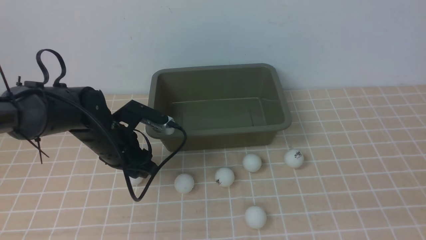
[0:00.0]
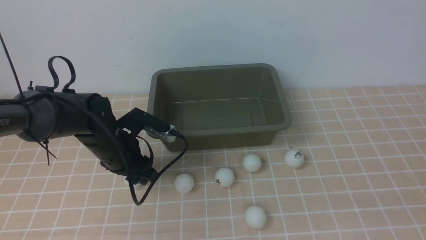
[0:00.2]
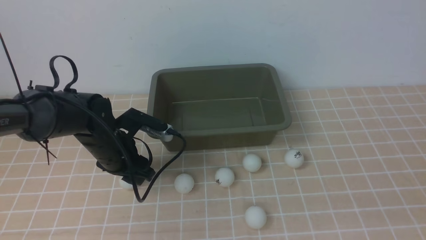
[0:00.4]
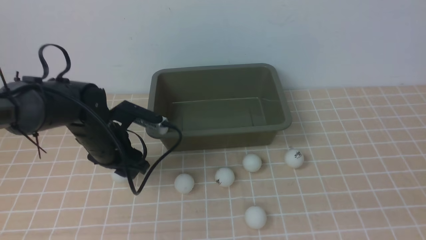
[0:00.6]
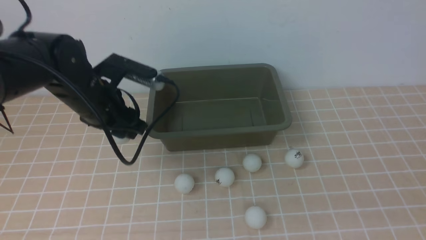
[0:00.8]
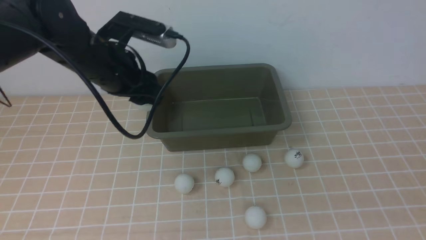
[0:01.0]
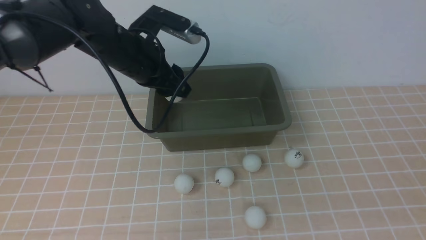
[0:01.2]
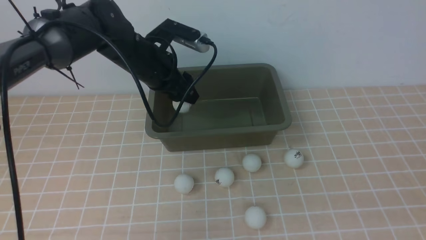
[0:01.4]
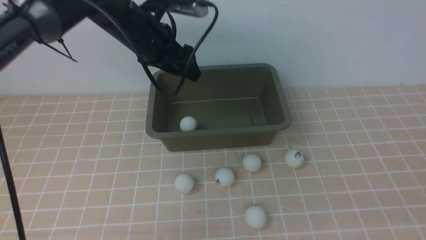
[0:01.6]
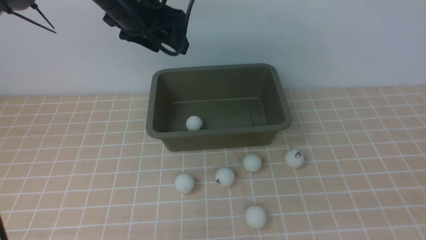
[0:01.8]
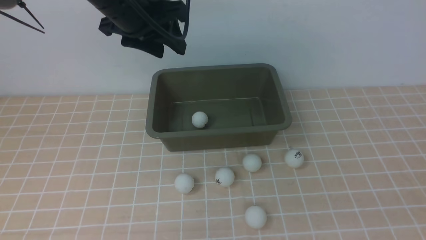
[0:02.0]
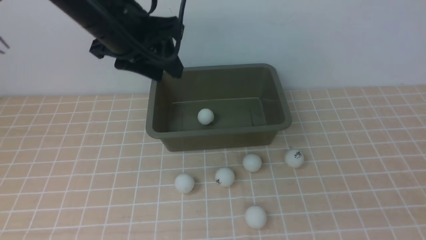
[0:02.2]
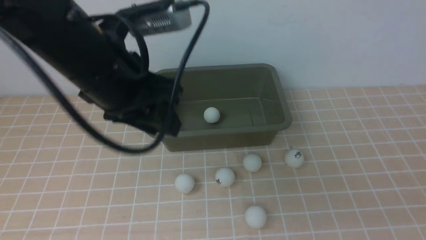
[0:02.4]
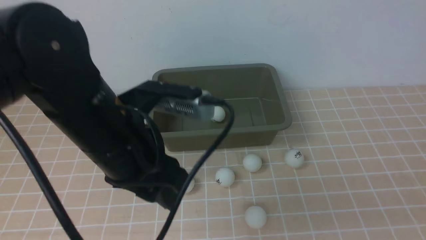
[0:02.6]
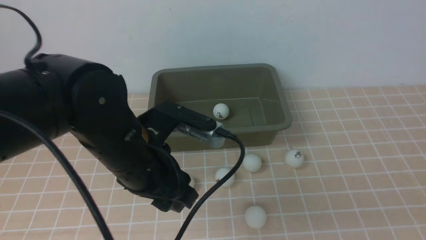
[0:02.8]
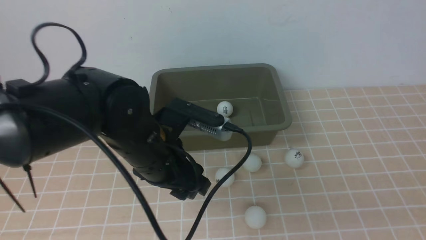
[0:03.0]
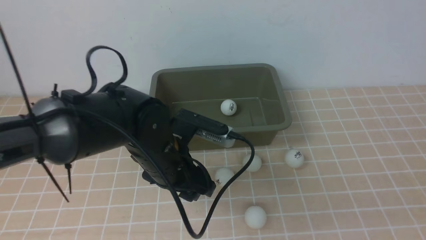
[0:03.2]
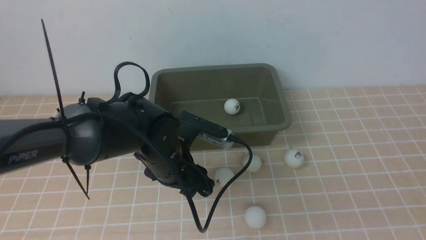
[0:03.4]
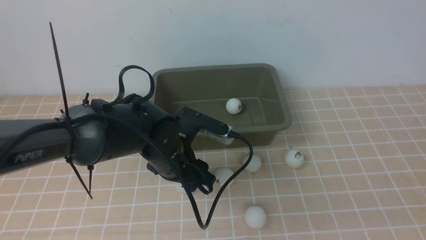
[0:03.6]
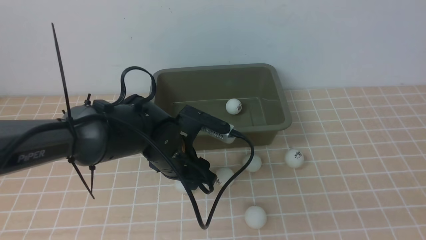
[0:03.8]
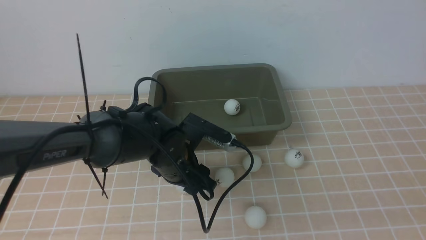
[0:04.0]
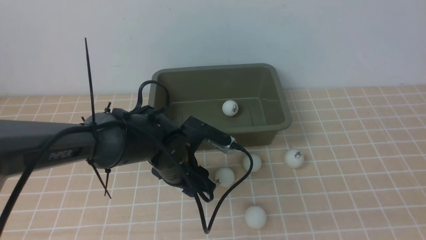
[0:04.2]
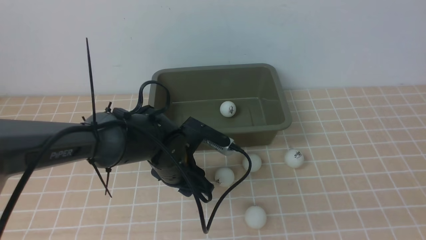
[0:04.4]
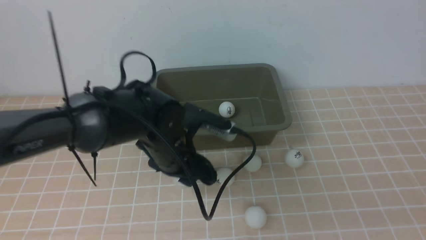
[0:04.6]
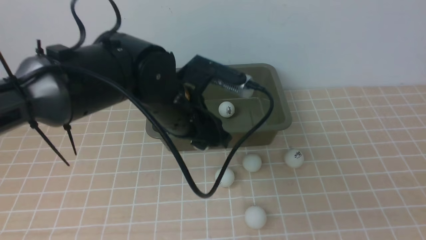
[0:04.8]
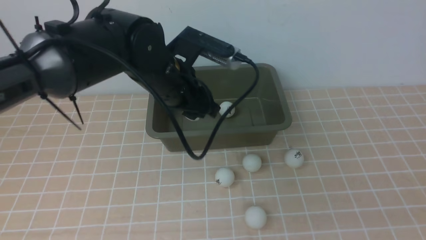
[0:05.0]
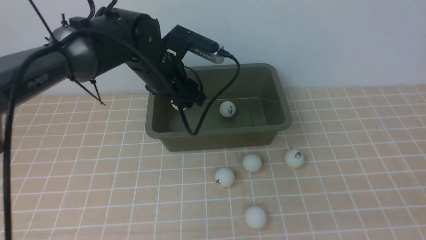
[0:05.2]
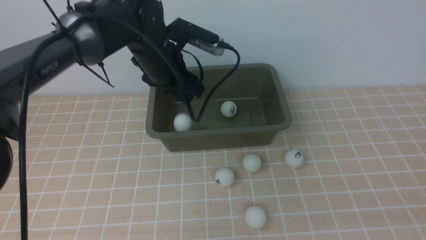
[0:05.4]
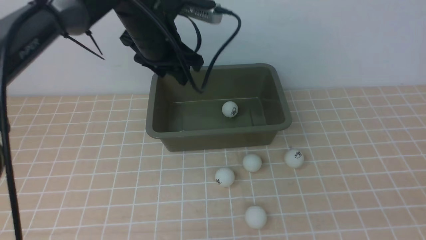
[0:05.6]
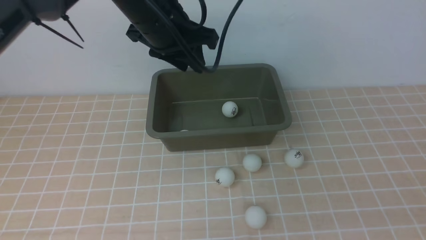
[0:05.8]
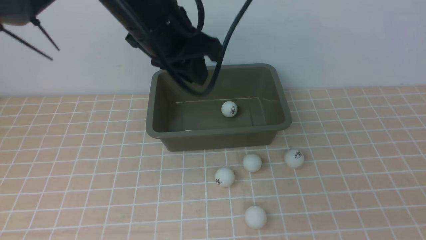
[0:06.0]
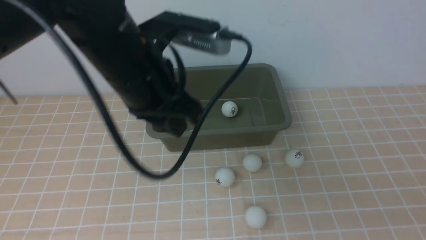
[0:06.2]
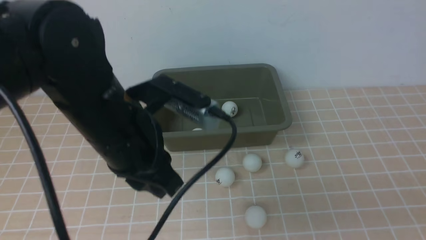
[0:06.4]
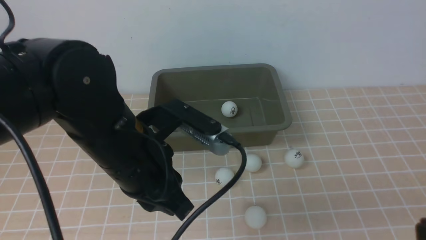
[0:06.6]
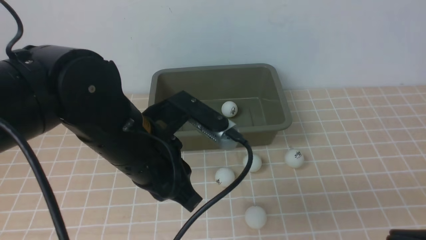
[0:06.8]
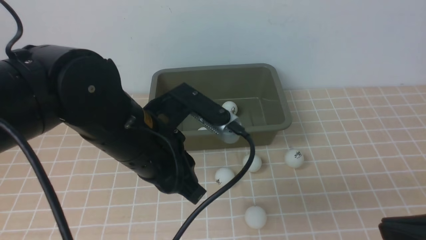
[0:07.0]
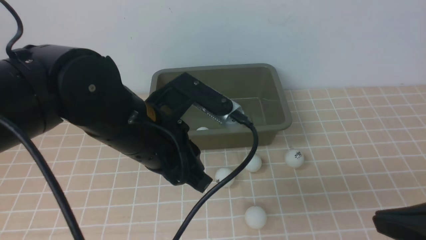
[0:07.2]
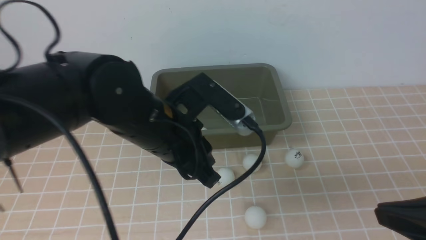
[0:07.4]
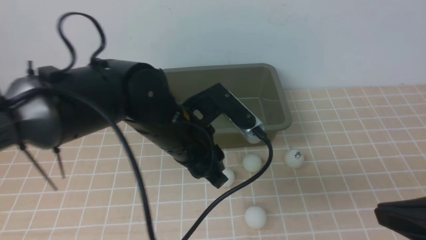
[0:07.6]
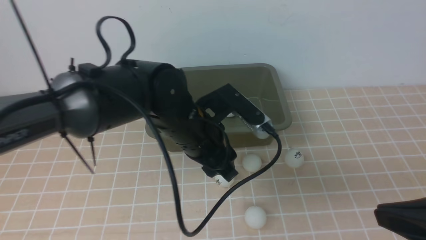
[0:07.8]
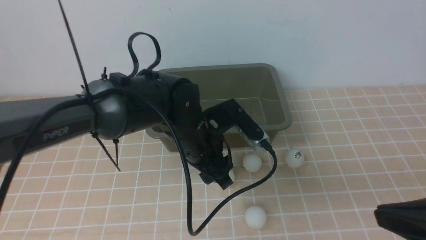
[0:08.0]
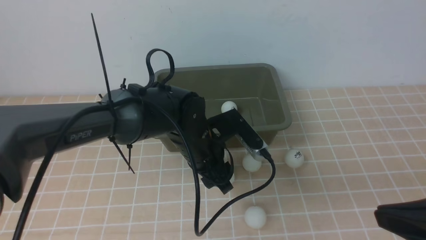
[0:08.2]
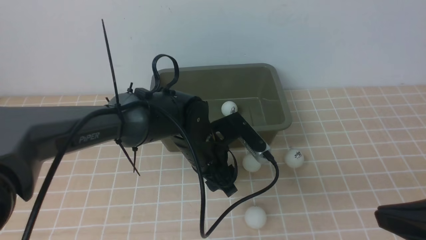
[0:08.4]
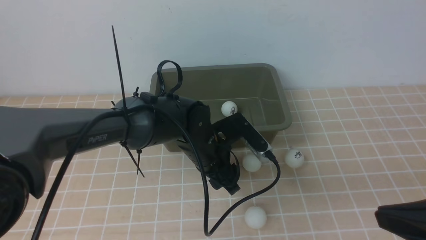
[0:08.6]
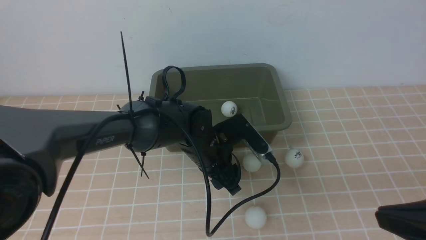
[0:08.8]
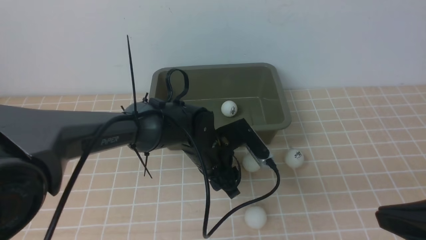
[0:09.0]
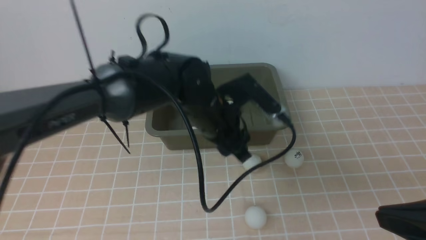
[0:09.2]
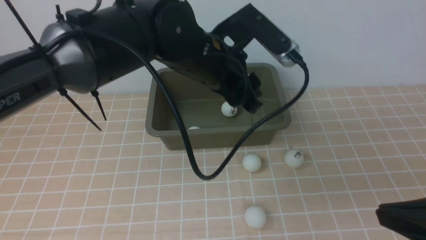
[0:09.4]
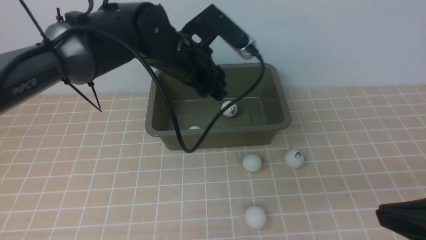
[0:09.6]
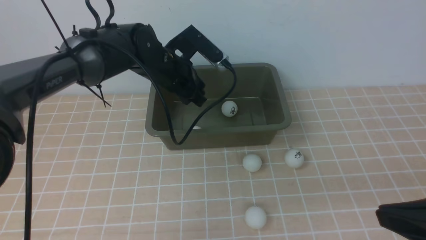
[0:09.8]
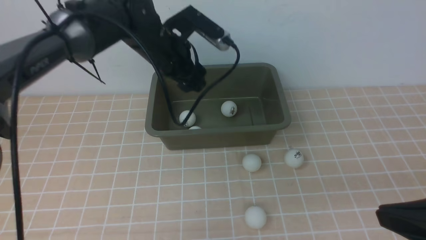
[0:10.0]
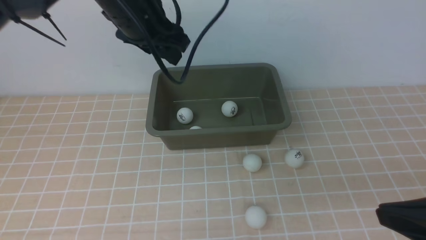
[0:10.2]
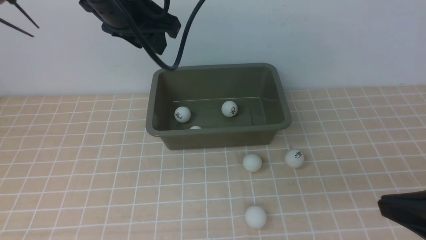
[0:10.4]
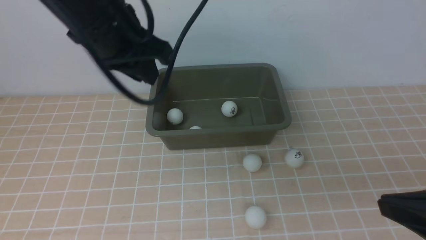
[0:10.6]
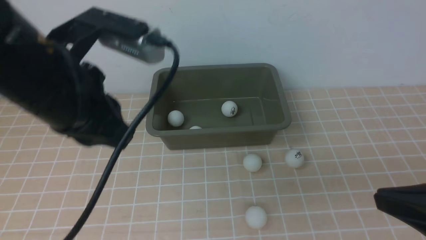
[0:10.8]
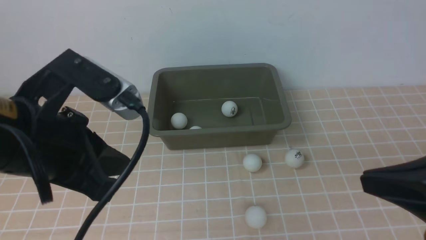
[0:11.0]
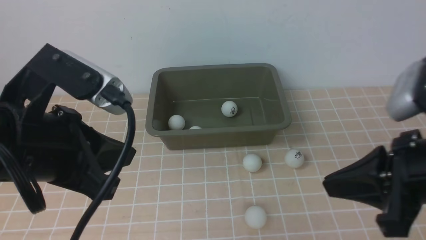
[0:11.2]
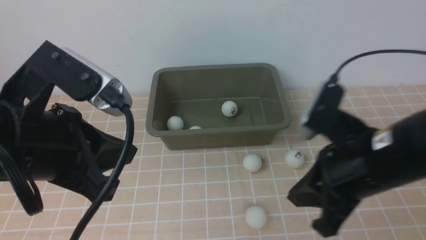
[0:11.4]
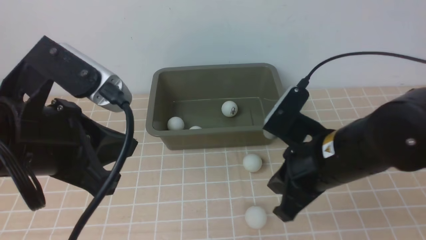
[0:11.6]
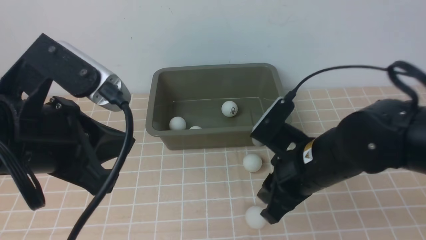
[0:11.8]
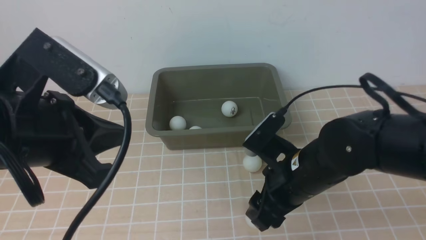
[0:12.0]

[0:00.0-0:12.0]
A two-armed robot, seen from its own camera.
Step, 0:01.0 to 0:02.0: use the left arm to put the table tennis ball into the box.
Step, 0:02.2 to 0:05.0: use the left arm to clamp the table tennis ball closest to it.
Step, 0:05.2 to 0:06.0: use the left arm to put the table tennis ball into the box.
Step, 0:06.2 to 0:09.0: use the left arm to clamp the table tennis ball closest to it.
Step, 0:09.2 to 0:10.6: use the left arm to put the table tennis ball into the box.
0:00.0 to 0:01.6: The left gripper travels upward and forward by some 20 cm.
0:01.6 to 0:03.0: The left gripper shifts some 20 cm backward and downward.
0:03.0 to 0:04.4: The left gripper heads downward, covering approximately 5 cm.
0:04.4 to 0:06.0: The left gripper heads upward, covering approximately 20 cm, and closes its fingers.
0:06.0 to 0:07.6: The left gripper travels downward by about 10 cm, while the right gripper moves forward, roughly 5 cm.
0:07.6 to 0:09.0: The left gripper goes roughly 10 cm downward and forward.
0:09.0 to 0:10.4: The left gripper heads upward and to the left, covering some 25 cm.
0:10.4 to 0:12.0: The left gripper is displaced backward by about 20 cm, and closes. Meanwhile the right gripper goes about 20 cm to the left, forward and downward, and opens up.

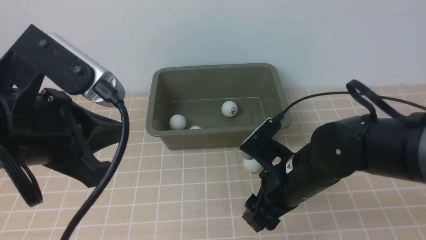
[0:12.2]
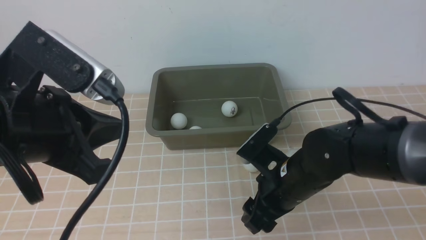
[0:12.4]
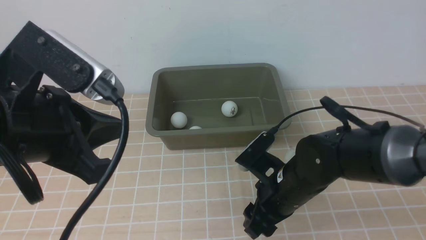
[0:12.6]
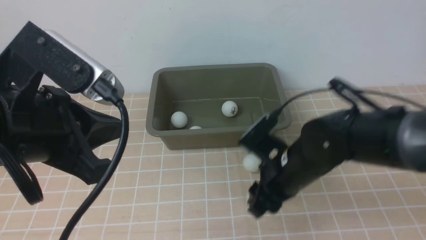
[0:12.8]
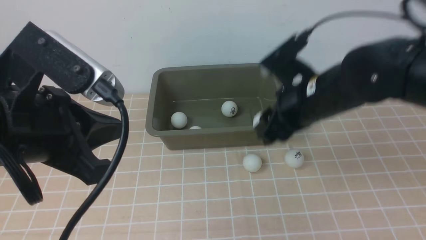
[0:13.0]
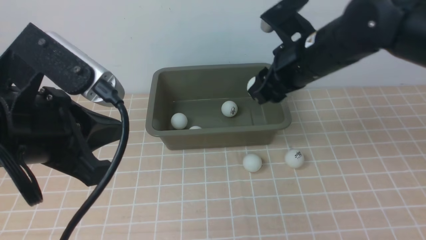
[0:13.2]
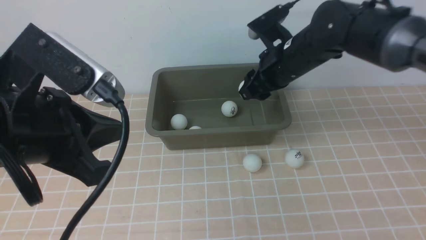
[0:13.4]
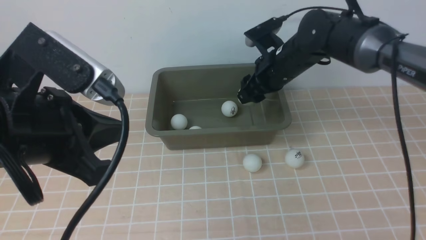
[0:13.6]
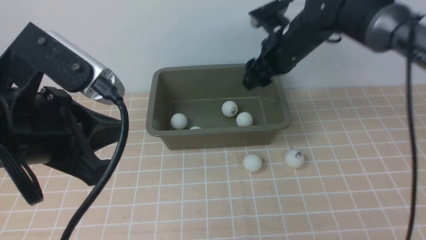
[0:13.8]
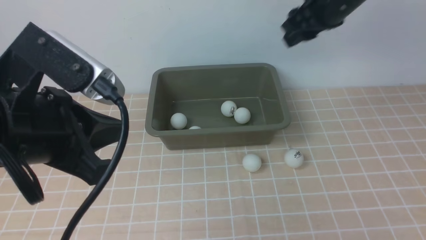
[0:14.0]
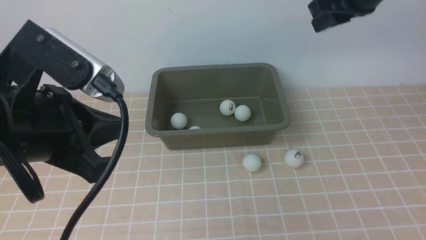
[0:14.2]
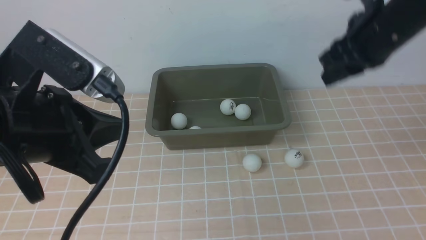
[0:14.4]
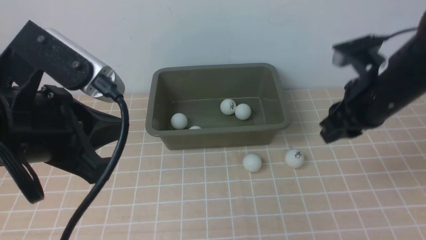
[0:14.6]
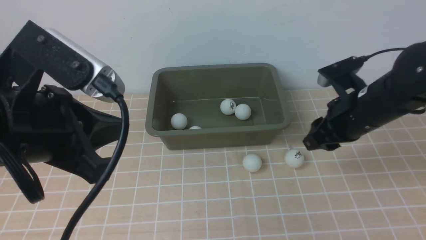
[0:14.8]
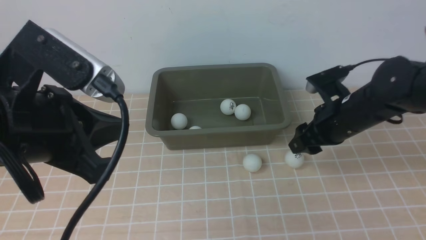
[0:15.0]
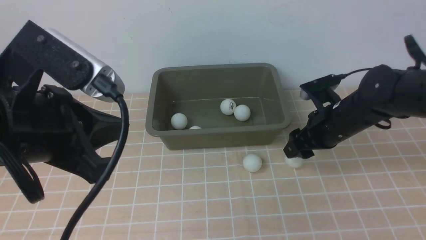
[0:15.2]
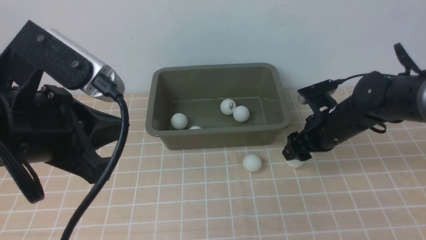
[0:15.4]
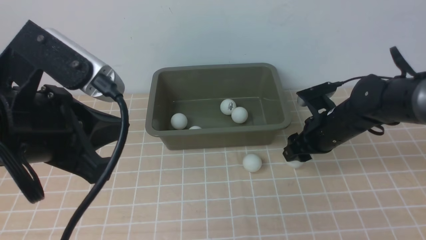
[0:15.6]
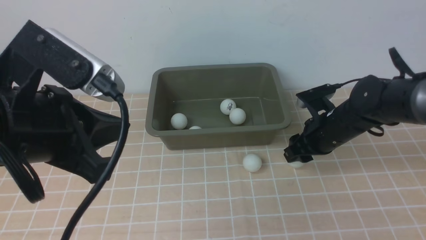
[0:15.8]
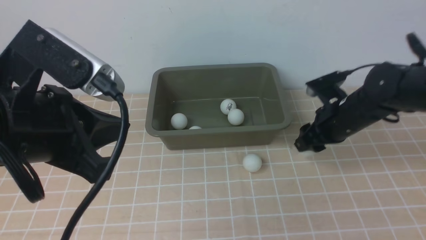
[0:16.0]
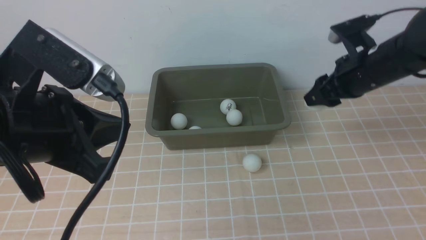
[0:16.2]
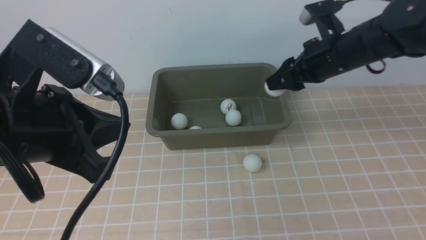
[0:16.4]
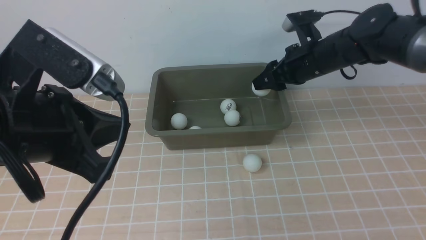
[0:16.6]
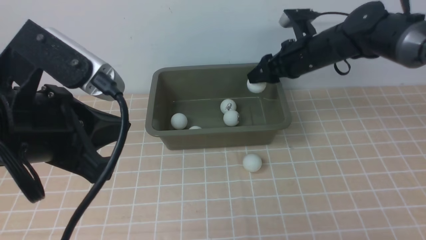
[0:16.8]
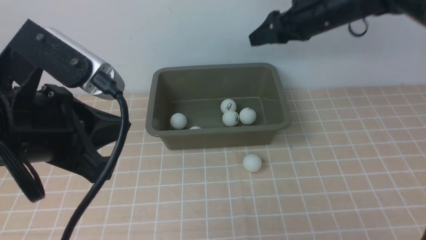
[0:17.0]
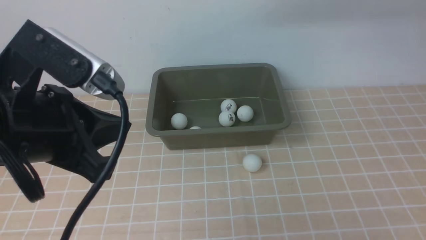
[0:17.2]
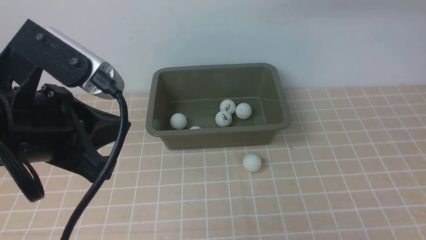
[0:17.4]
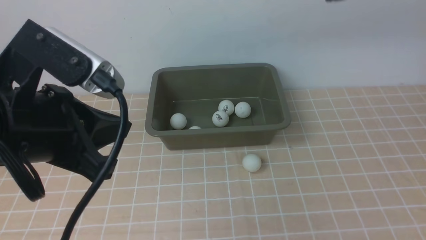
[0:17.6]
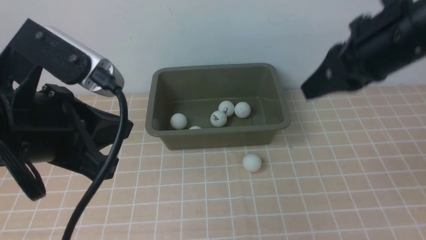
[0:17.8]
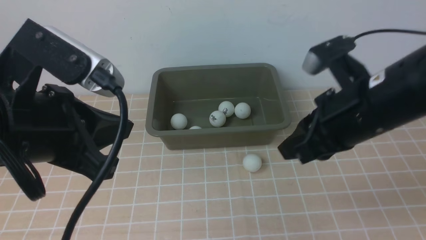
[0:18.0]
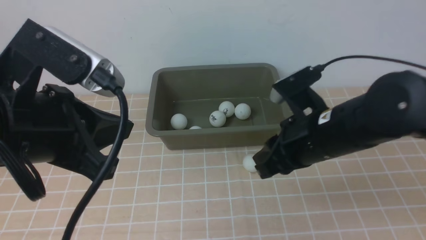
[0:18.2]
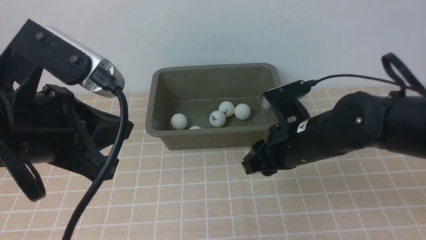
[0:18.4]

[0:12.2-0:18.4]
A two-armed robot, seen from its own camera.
Step, 0:13.0 to 0:14.2: use the right arm to put the table tennis ball into the box.
Step, 0:14.6 to 0:16.0: use the right arm to clamp the table tennis ball closest to it.
Step, 0:16.2 to 0:16.8: use the right arm to put the table tennis ball into the box.
0:12.2 to 0:13.8: The right gripper travels forward and upward by approximately 20 cm.
0:13.8 to 0:15.4: The right gripper moves downward and backward, about 15 cm, and closes, then reopens.
0:15.4 to 0:16.8: The right gripper shifts approximately 15 cm upward and forward.
0:16.8 to 0:18.4: The right gripper is displaced backward by roughly 15 cm, goes upward and returns, about 15 cm each way, and closes and opens again.
